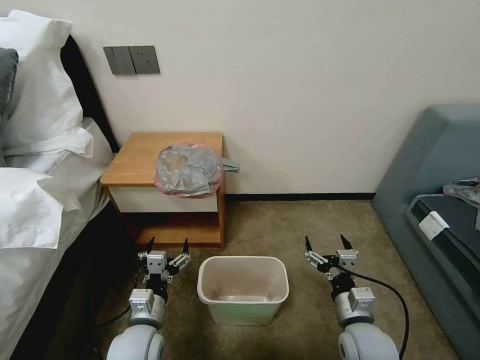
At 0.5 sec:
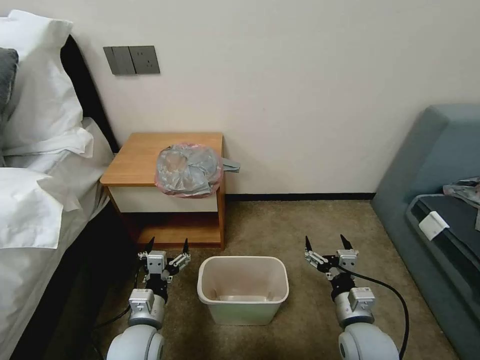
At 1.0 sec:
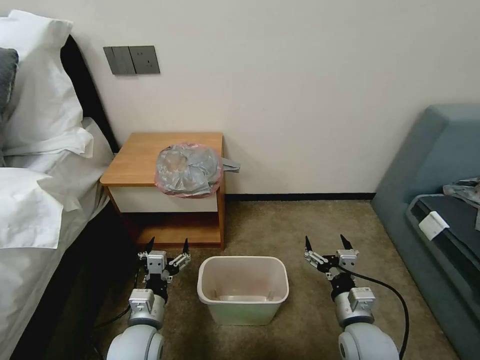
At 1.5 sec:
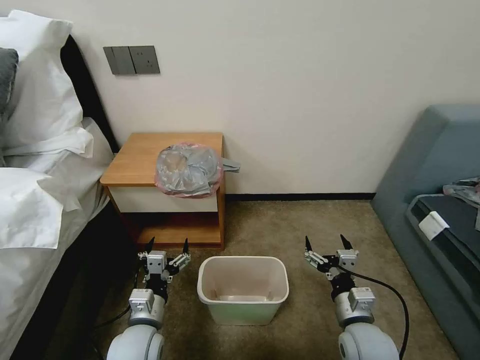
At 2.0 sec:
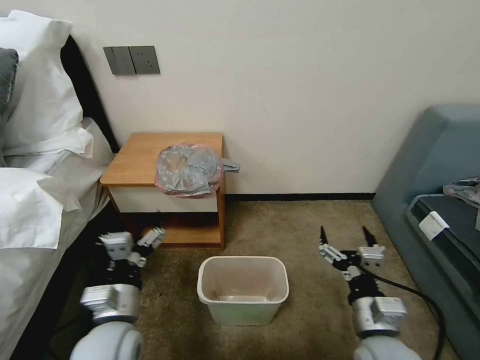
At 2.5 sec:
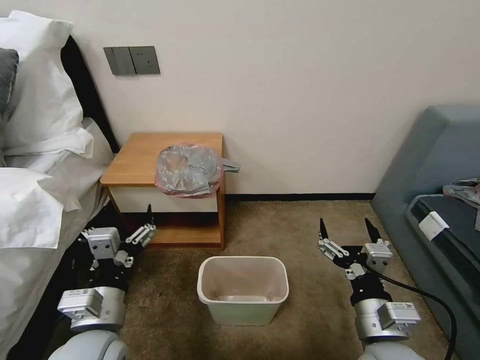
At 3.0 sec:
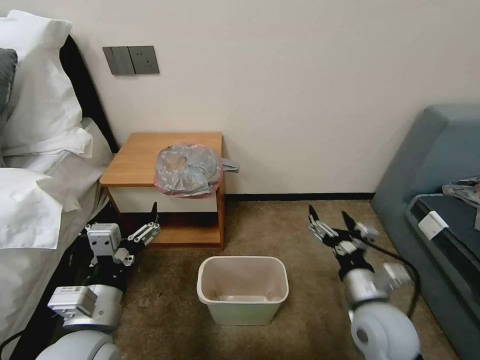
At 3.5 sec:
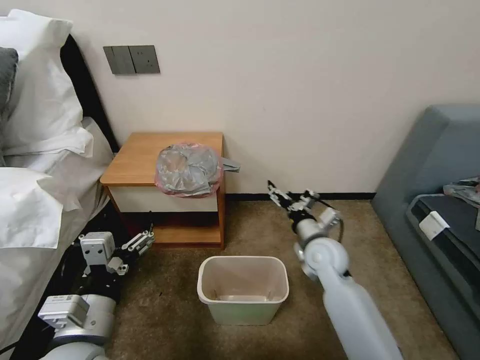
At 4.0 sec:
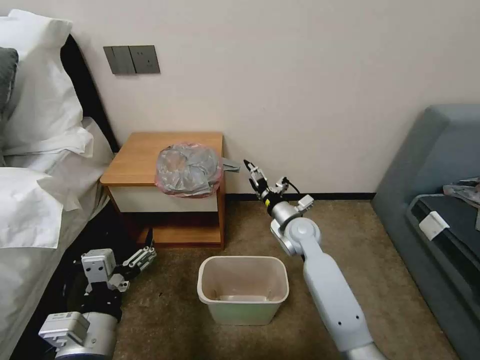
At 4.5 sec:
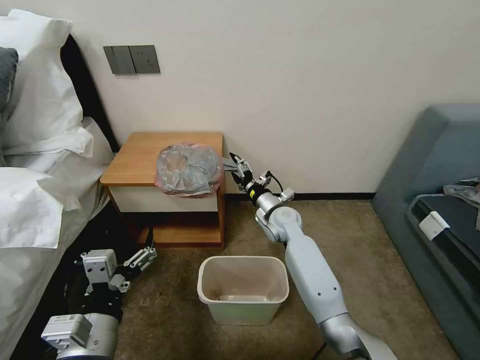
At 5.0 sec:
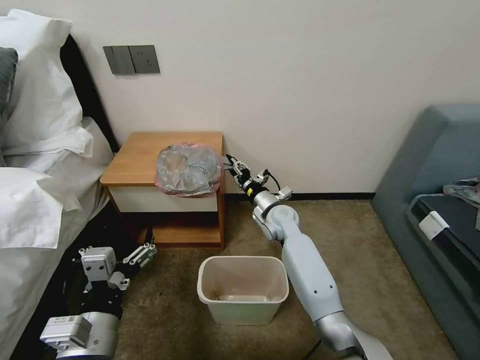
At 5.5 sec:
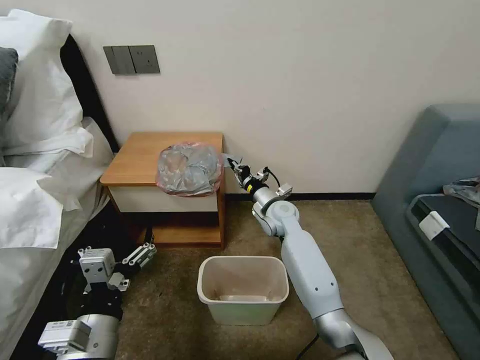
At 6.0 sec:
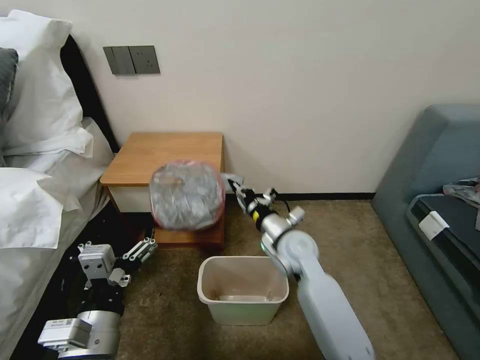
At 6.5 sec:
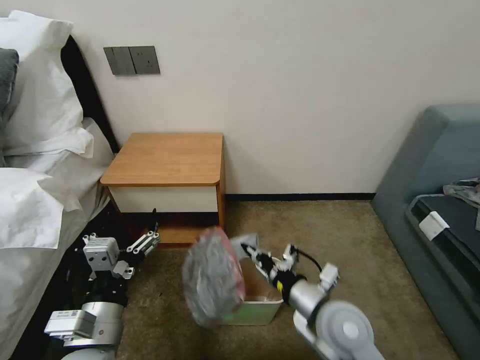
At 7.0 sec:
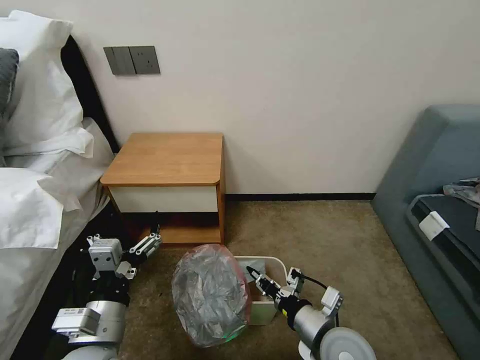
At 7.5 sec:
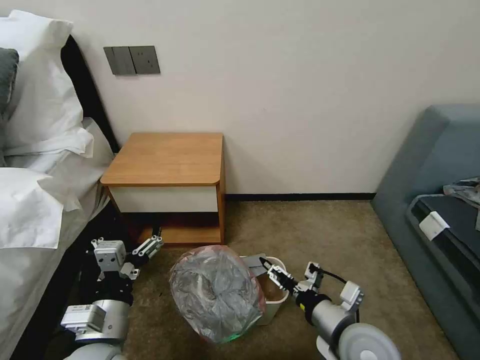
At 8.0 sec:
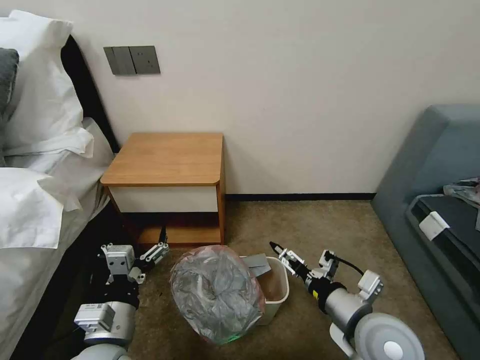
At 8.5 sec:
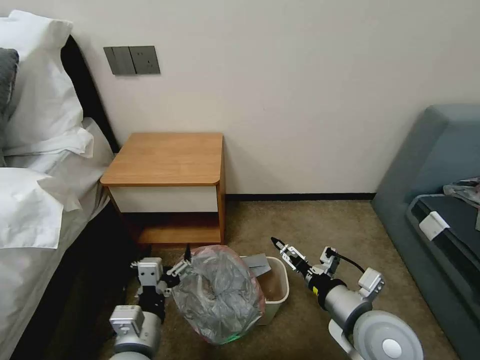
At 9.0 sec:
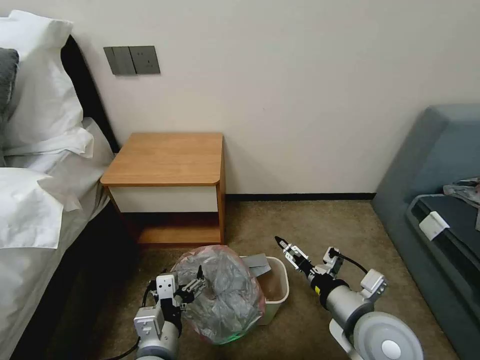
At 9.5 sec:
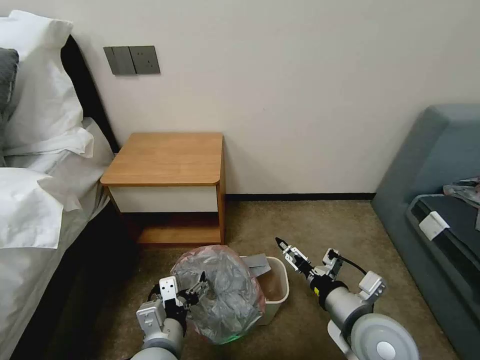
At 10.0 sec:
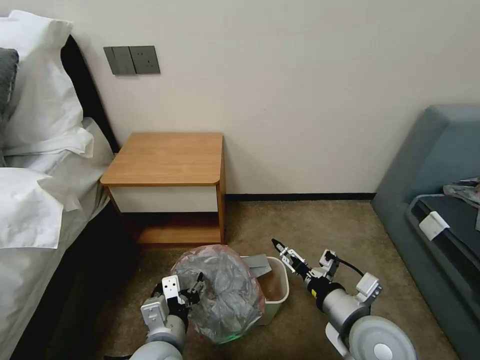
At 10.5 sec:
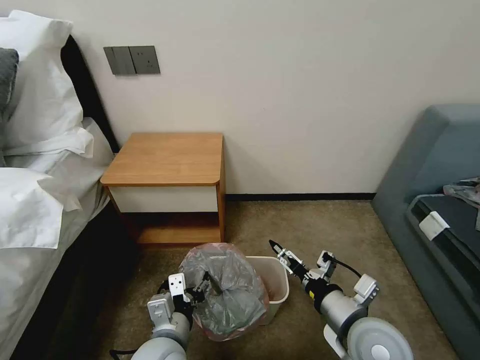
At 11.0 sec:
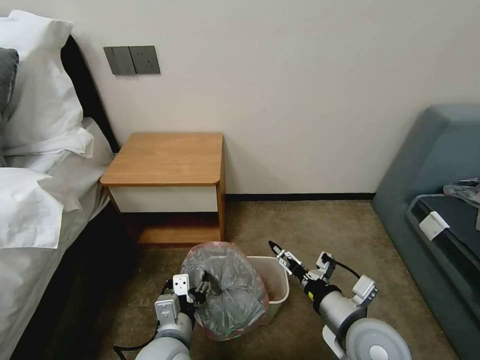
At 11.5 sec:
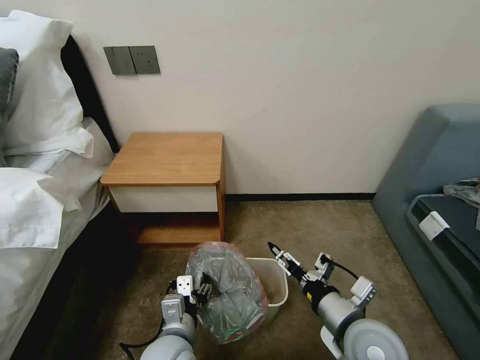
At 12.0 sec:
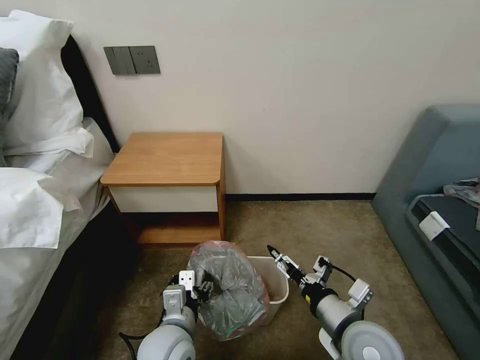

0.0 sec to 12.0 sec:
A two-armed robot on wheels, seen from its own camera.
Task of the whole recording: Pick up the garbage bag from the table and place it over the trash can.
2.0 sec to 4.0 sec: The right gripper is displaced forward by approximately 30 cm. The left gripper goes some 5 cm backward.
4.0 sec to 6.0 sec: The right gripper shifts some 5 cm backward, and closes.
6.0 sec to 8.0 sec: The right gripper goes about 20 cm backward and to the right, and opens its fingers; the left gripper shifts by some 5 cm.
8.0 sec to 10.0 sec: The left gripper goes some 10 cm to the right, and closes its fingers.
10.0 sec to 12.0 sec: There are only small adjustments of the grippers.

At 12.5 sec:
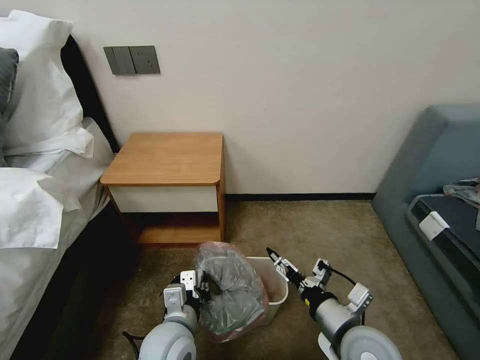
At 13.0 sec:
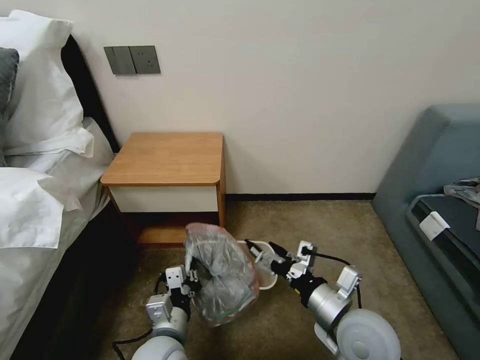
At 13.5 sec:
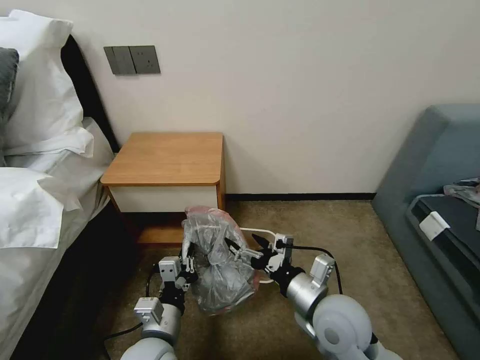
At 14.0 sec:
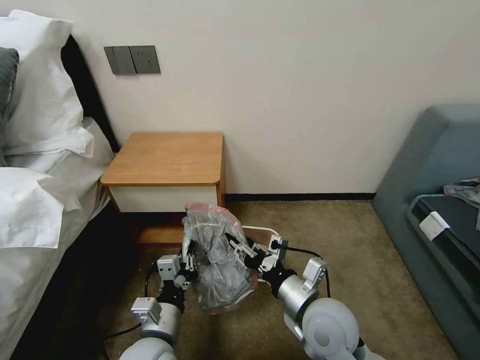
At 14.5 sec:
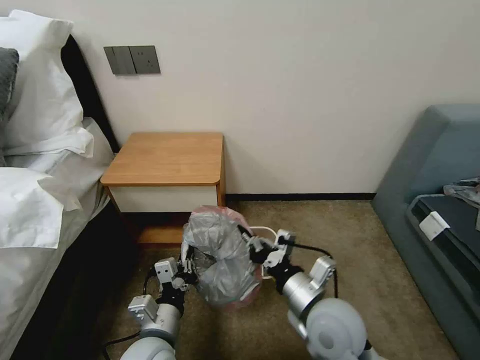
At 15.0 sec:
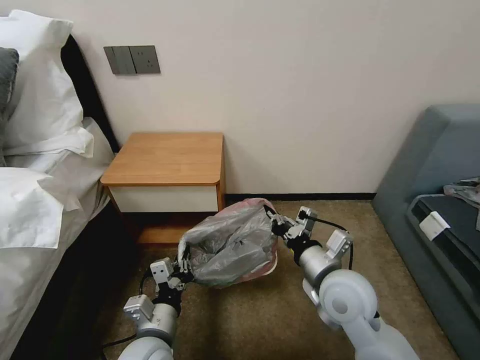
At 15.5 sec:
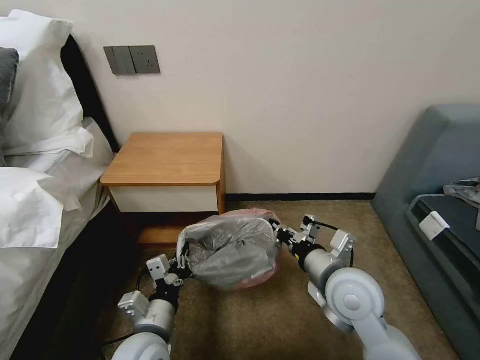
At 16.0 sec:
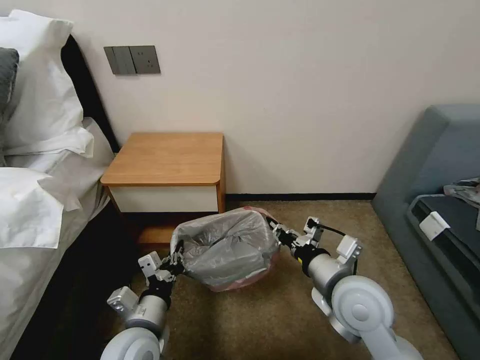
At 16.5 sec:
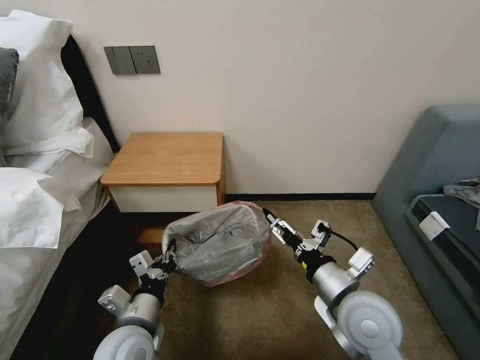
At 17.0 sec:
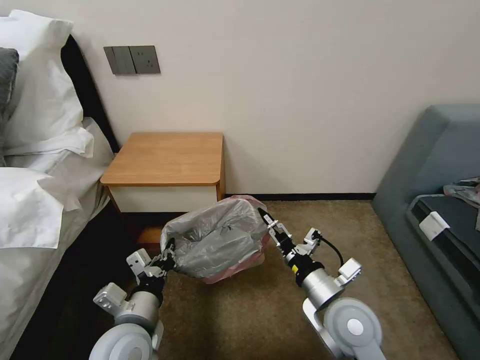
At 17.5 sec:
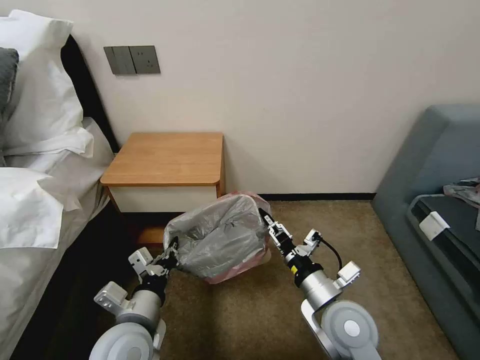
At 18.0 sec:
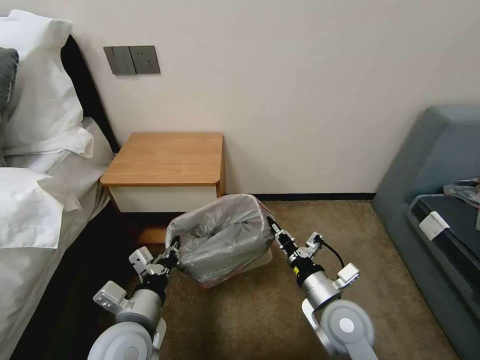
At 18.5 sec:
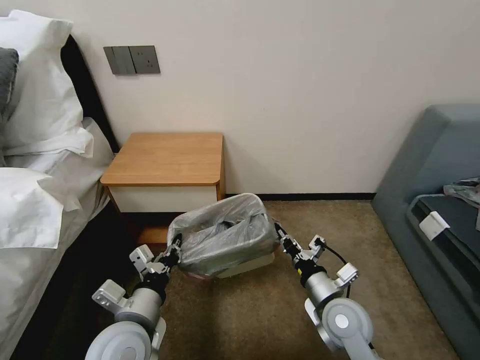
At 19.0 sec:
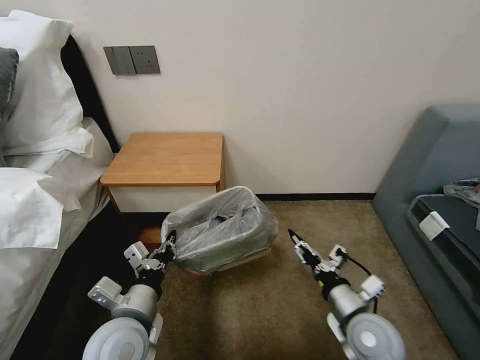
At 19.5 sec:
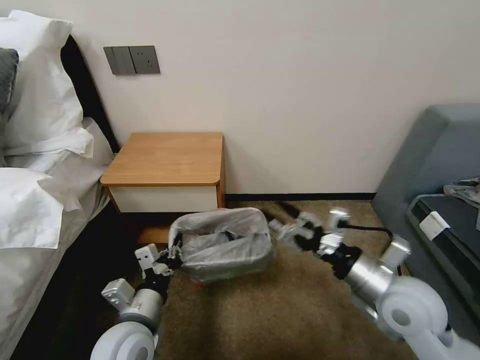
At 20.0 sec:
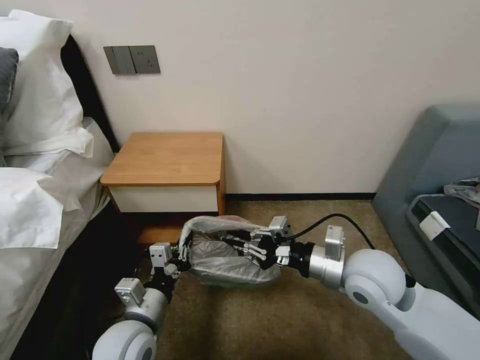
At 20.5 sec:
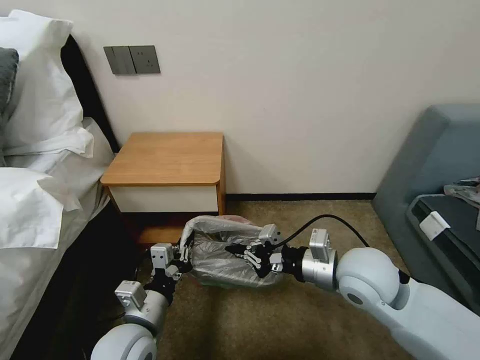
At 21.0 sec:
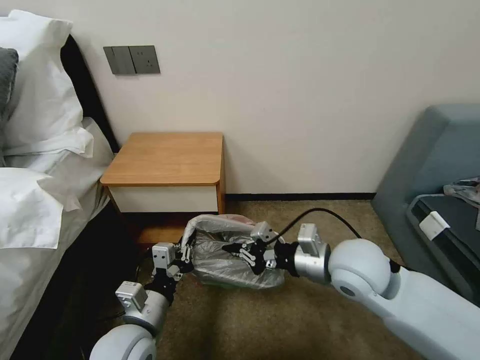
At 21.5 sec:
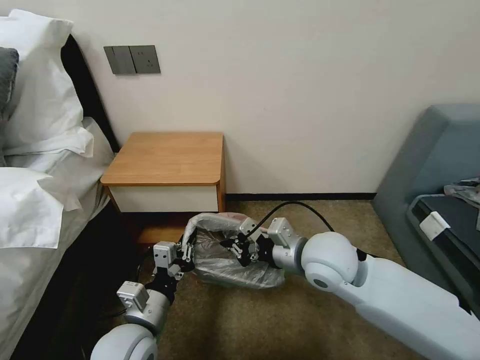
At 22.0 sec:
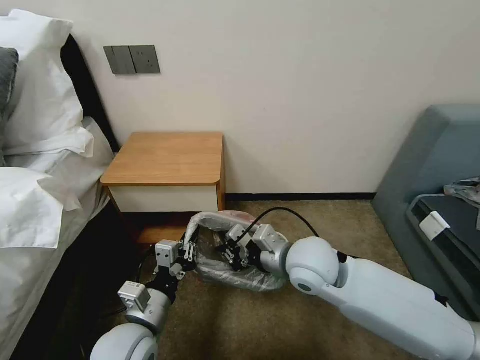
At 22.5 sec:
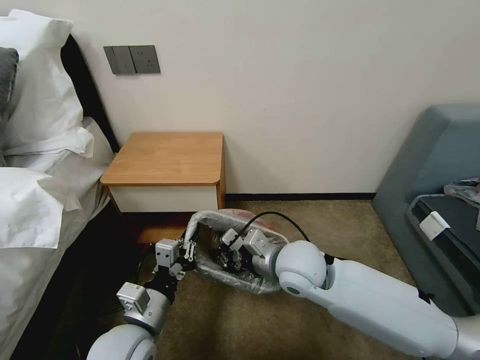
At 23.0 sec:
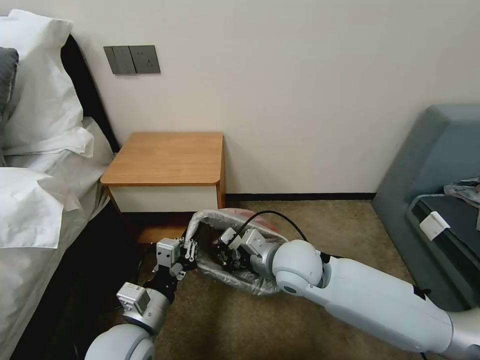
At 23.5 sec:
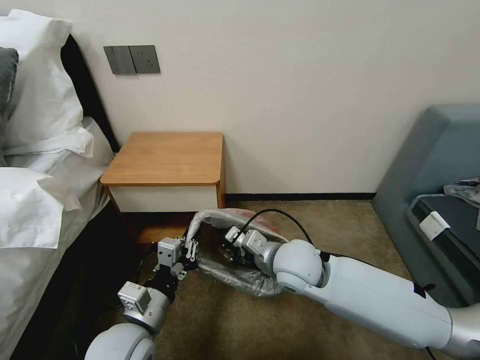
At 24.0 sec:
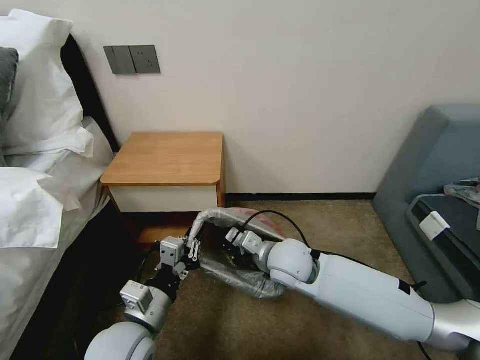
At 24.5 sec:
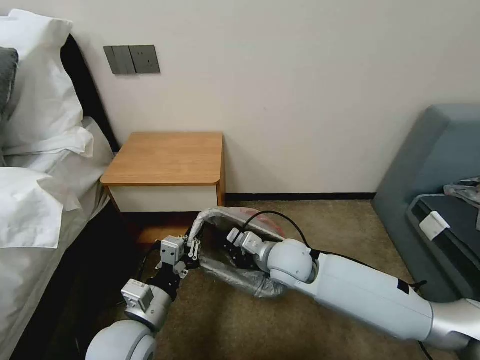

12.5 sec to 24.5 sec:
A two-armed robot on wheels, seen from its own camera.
Task of the whole recording: Pick up the garbage bag from the table and place it over the trash can.
12.5 sec to 14.5 sec: The right gripper is displaced to the left by about 5 cm, and closes its fingers.
14.5 sec to 16.5 sec: The right gripper travels to the right by about 5 cm, and opens its fingers.
16.5 sec to 18.5 sec: The right gripper shifts approximately 10 cm downward, and closes up.
18.5 sec to 20.5 sec: The right gripper moves upward, some 15 cm, and opens, then closes once more.
20.5 sec to 22.5 sec: The right gripper is displaced to the left by approximately 10 cm.
22.5 sec to 24.5 sec: The right gripper shifts by approximately 5 cm.

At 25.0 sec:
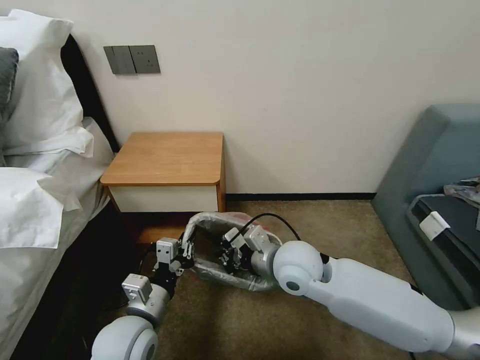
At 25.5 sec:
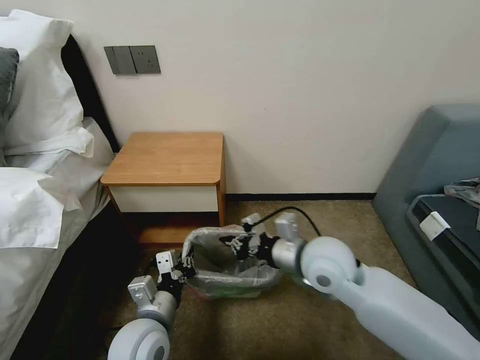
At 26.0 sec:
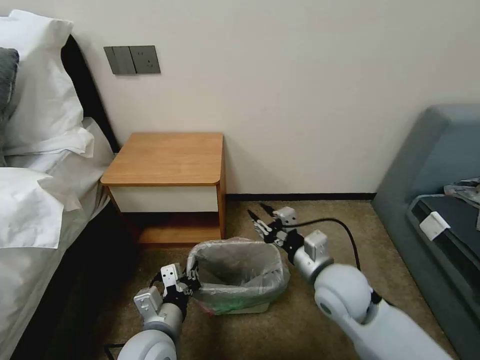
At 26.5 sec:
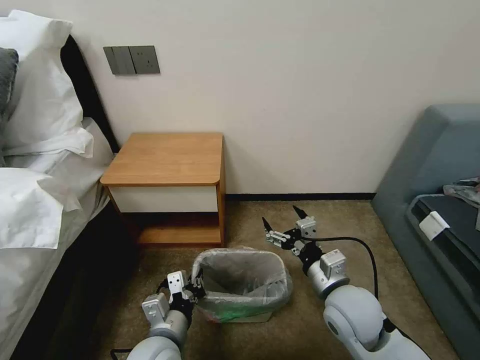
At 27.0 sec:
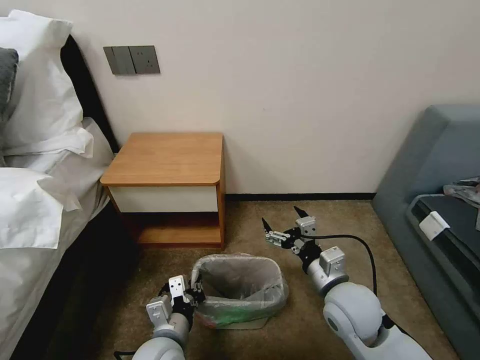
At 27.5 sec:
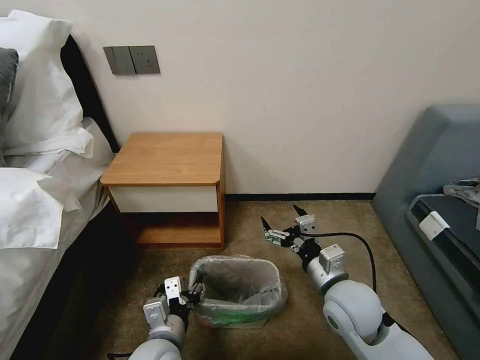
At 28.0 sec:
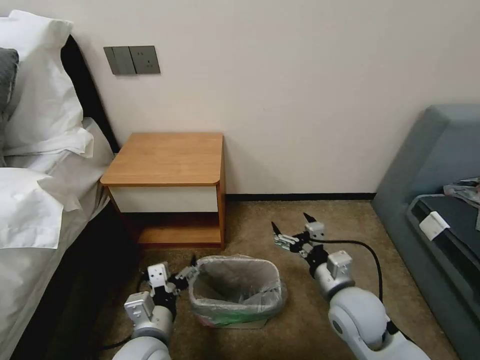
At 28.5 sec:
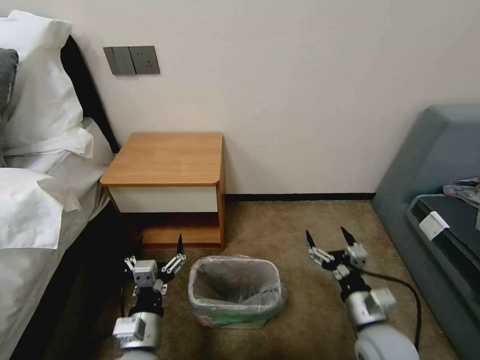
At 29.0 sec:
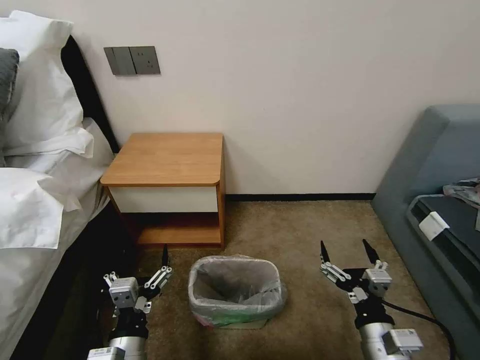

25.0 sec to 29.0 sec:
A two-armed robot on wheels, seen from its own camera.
Task of the whole recording: Pick up the garbage bag from the table and place it over the trash can.
25.0 sec to 27.0 sec: The right gripper heads to the right and backward, covering about 10 cm, and opens. The left gripper ends up some 5 cm from where it was.
27.0 sec to 29.0 sec: The left gripper goes roughly 5 cm backward, and opens its fingers; the right gripper shifts approximately 10 cm backward.
